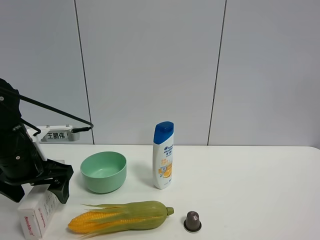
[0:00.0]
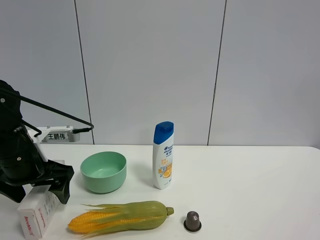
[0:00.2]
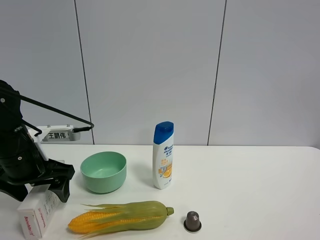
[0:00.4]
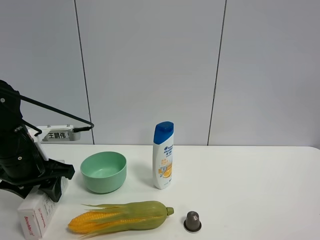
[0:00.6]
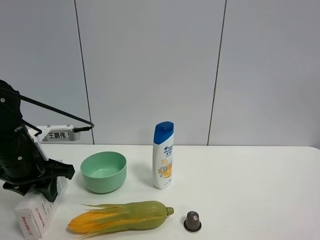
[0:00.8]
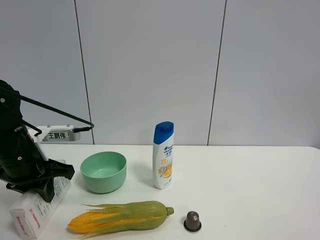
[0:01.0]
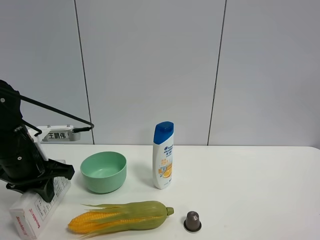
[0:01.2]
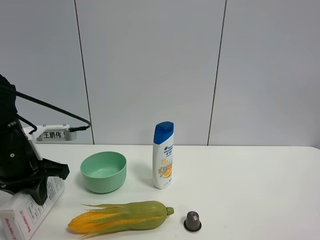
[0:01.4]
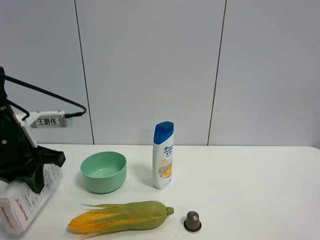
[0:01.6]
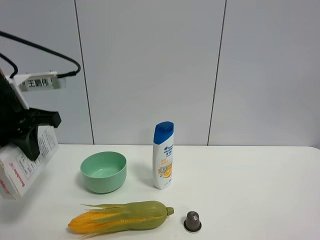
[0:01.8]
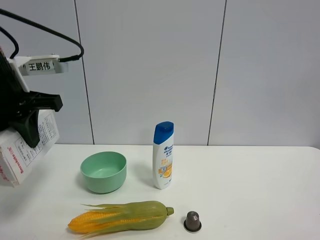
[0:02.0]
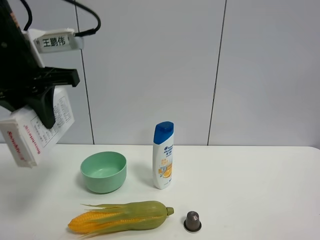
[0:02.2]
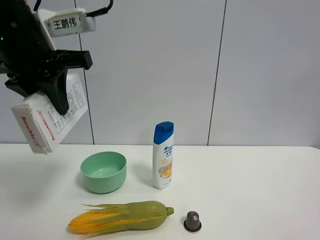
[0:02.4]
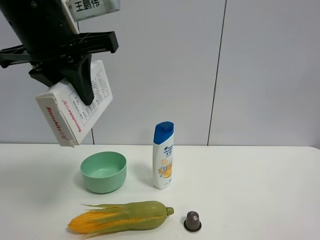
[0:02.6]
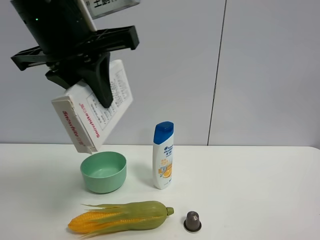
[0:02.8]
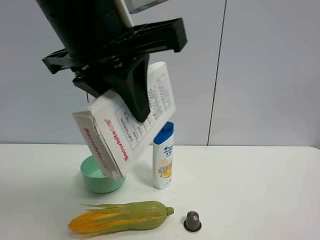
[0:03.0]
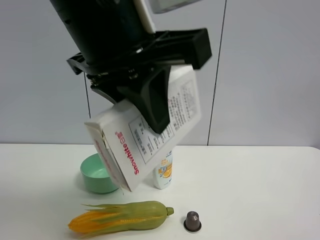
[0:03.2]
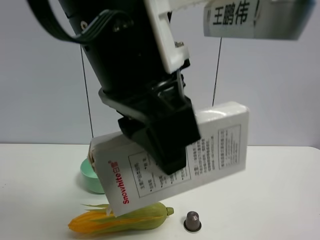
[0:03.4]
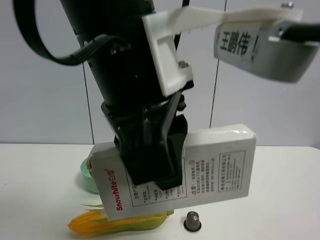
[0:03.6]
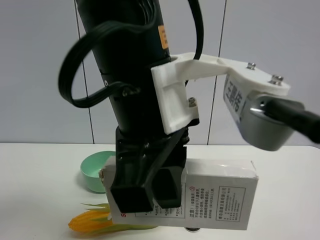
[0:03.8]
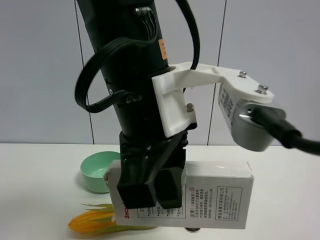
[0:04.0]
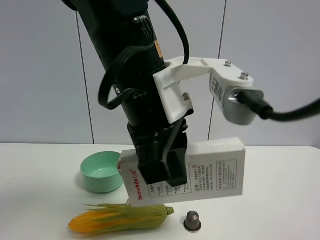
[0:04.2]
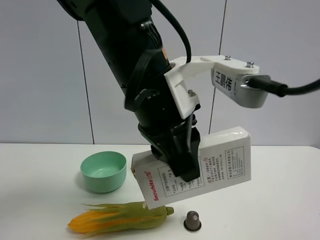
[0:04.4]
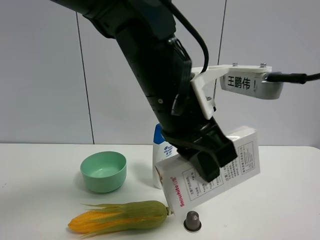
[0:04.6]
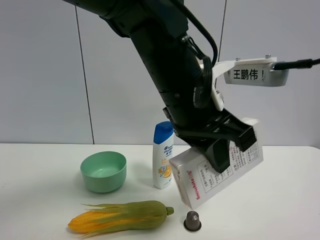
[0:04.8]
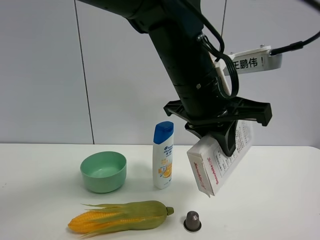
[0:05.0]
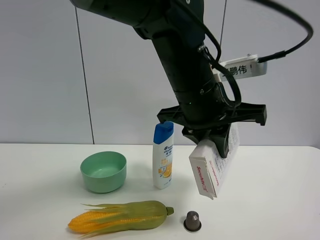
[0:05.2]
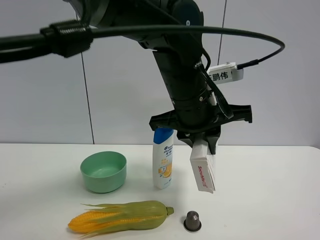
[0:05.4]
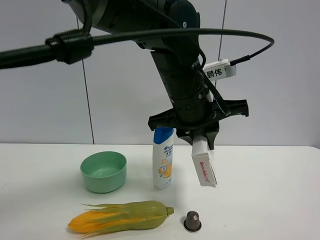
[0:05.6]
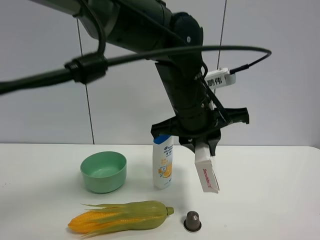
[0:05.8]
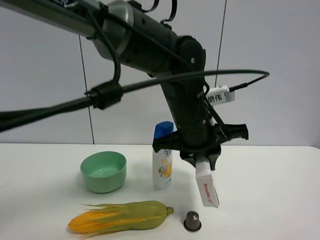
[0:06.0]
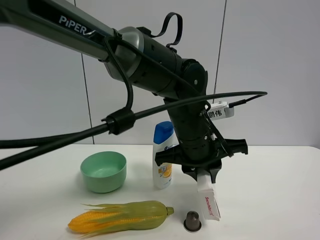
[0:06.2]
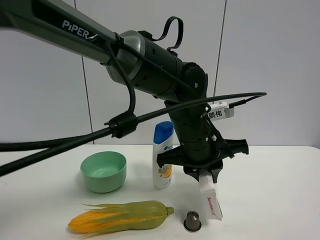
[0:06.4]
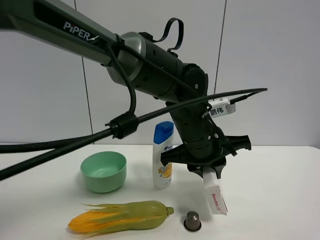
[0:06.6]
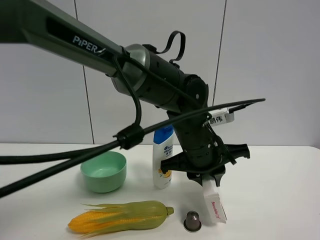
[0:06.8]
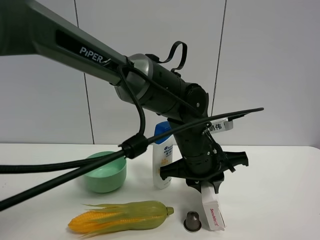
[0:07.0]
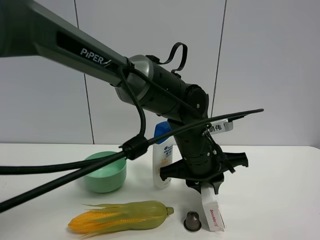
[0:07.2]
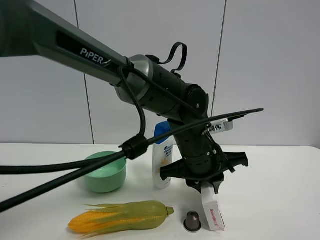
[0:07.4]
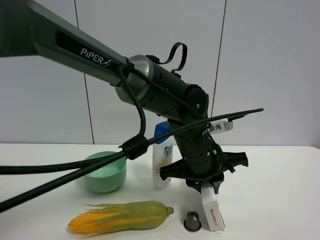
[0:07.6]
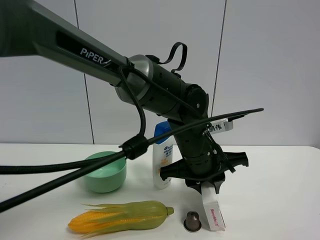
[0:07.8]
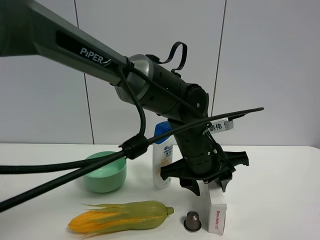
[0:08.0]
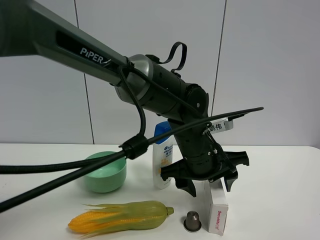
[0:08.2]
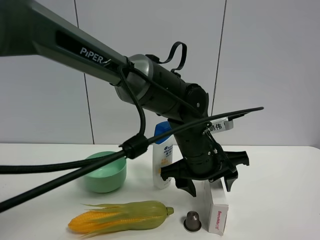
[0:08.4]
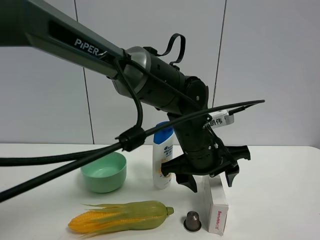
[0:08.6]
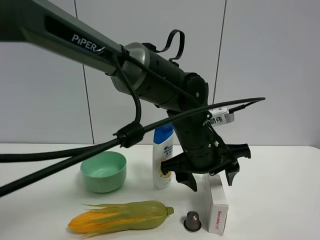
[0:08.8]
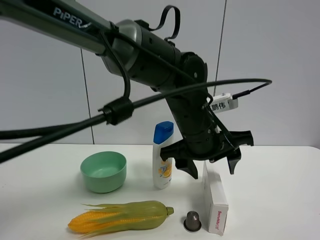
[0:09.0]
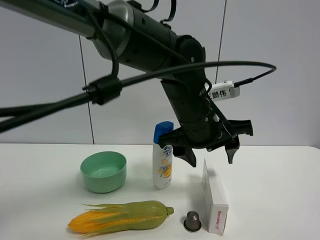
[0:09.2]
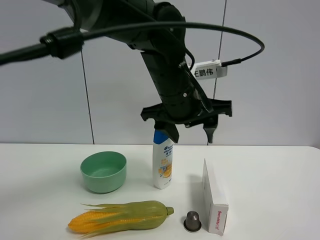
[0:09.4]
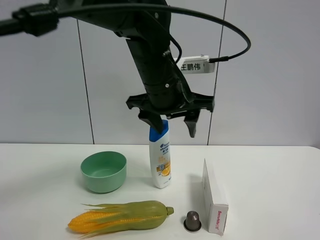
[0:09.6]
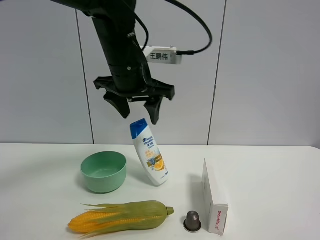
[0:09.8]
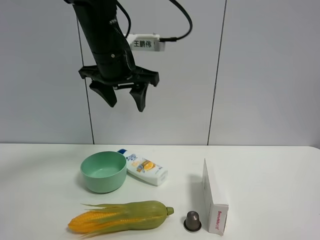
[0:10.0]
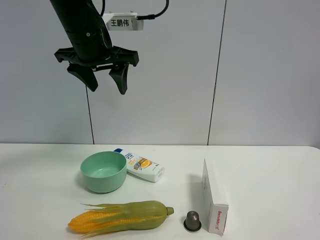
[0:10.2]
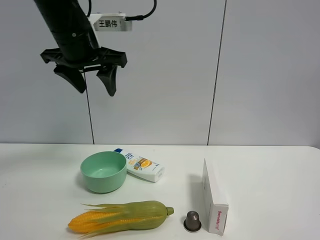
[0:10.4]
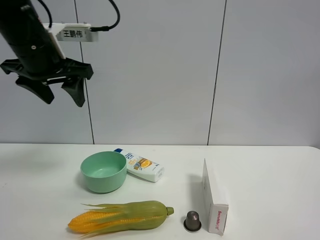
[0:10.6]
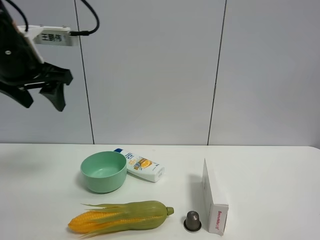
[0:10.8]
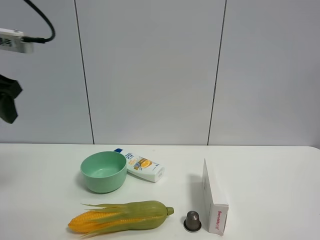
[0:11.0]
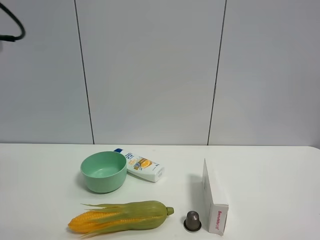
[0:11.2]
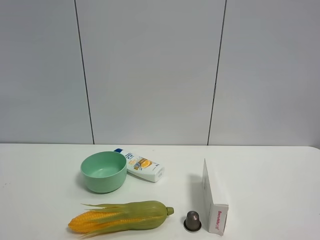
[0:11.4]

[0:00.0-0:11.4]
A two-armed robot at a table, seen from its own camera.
Task of the whole recording: the gripper move the object.
Step, 0:01.0 to 0:08.0: Place the USB box on the table with the left gripper.
0:00.0 to 0:01.4: The left gripper closes up.
0:01.4 to 0:02.8: The left gripper travels upward and to the right by approximately 25 cm.
0:02.8 to 0:04.2: The left gripper is displaced to the right and downward by about 10 cm.
0:04.2 to 0:05.6: The left gripper shifts approximately 10 cm forward and to the right.
0:05.6 to 0:07.2: The left gripper heads downward, covering approximately 10 cm.
0:07.2 to 0:08.6: The left gripper opens.
0:08.6 to 0:10.0: The left gripper moves to the left and upward, some 20 cm.
0:10.0 to 0:11.4: The left gripper is displaced to the left and backward by roughly 35 cm.

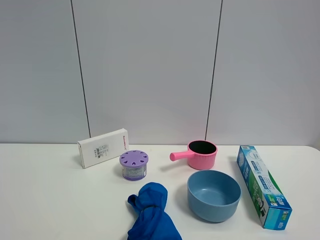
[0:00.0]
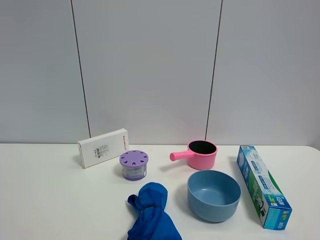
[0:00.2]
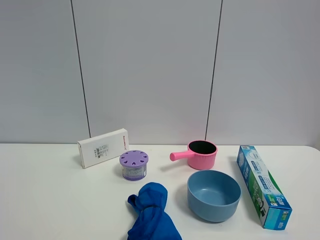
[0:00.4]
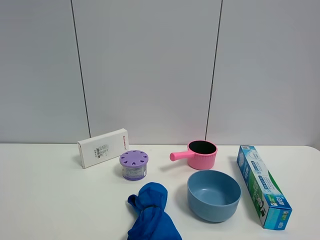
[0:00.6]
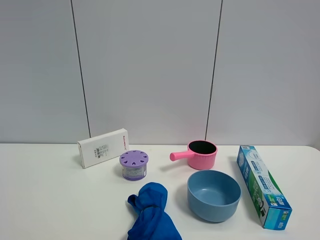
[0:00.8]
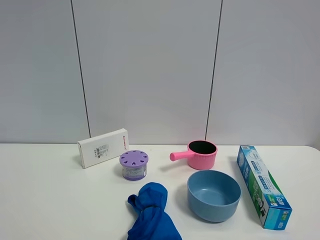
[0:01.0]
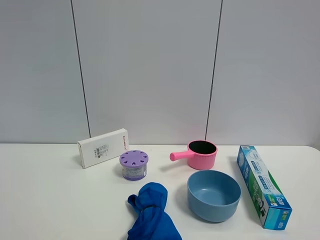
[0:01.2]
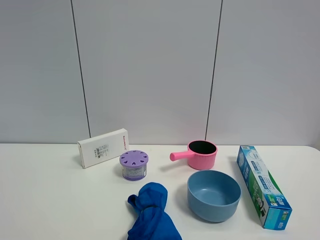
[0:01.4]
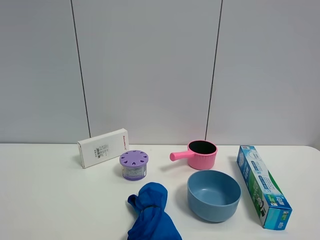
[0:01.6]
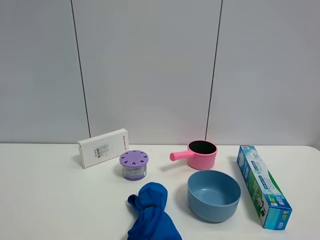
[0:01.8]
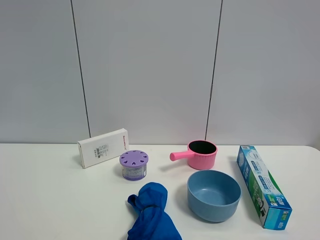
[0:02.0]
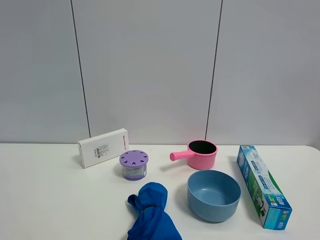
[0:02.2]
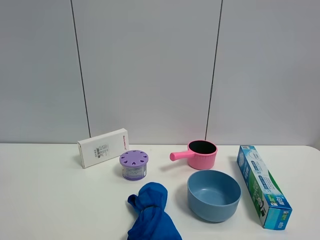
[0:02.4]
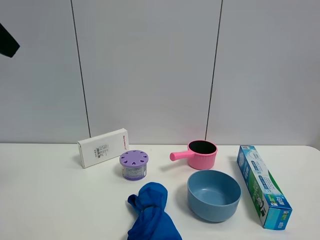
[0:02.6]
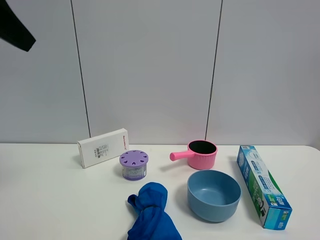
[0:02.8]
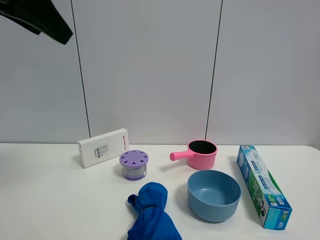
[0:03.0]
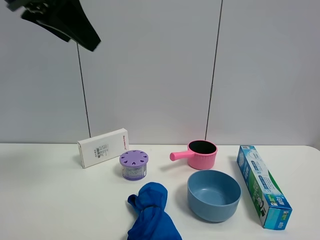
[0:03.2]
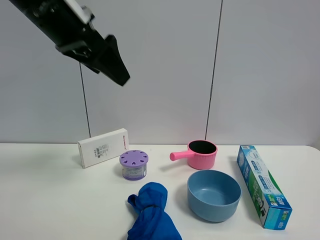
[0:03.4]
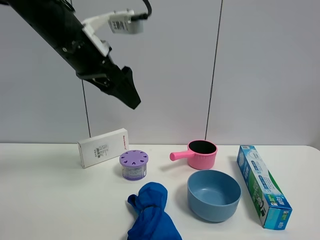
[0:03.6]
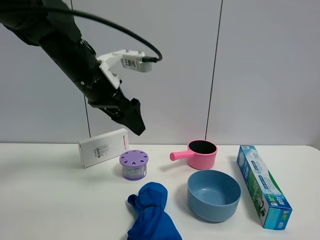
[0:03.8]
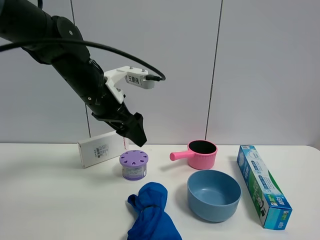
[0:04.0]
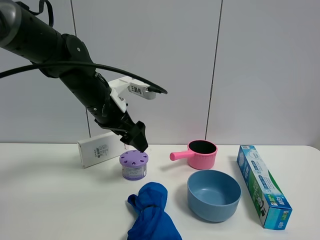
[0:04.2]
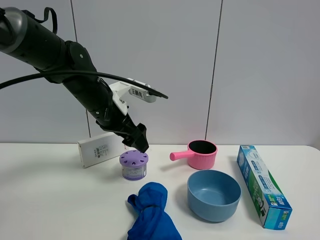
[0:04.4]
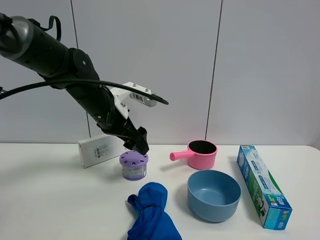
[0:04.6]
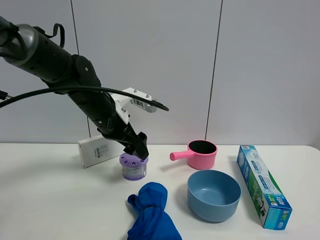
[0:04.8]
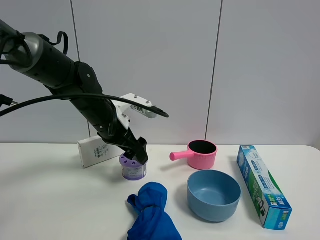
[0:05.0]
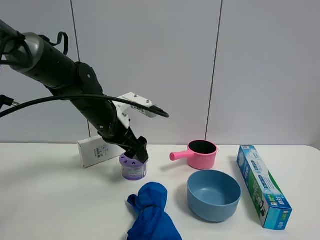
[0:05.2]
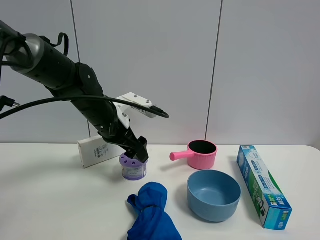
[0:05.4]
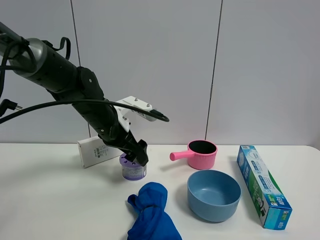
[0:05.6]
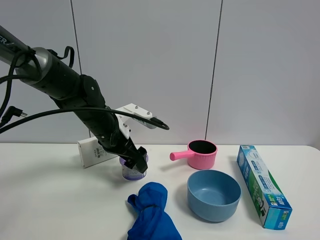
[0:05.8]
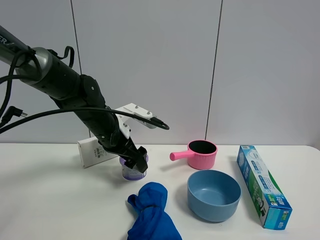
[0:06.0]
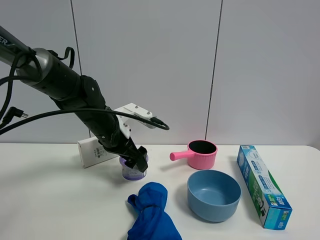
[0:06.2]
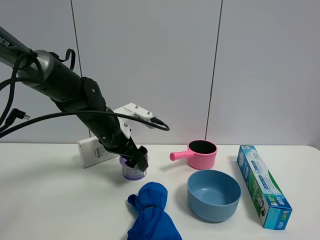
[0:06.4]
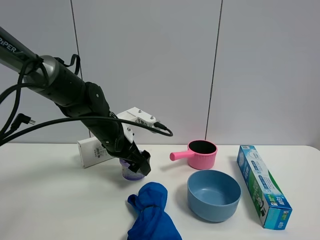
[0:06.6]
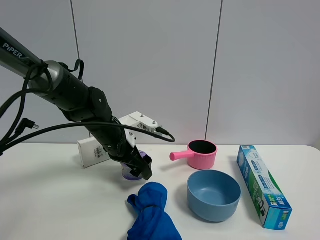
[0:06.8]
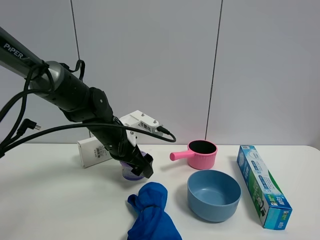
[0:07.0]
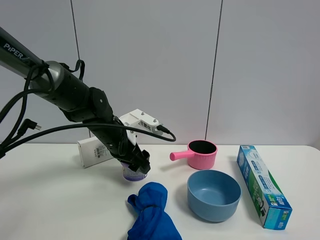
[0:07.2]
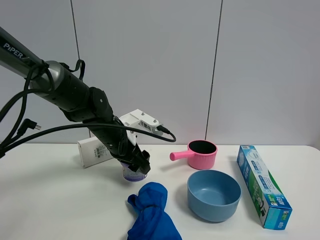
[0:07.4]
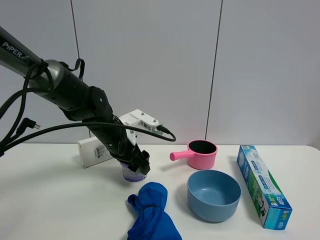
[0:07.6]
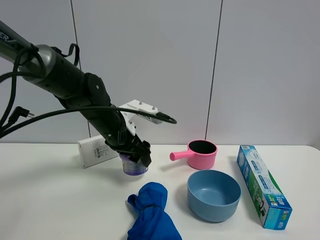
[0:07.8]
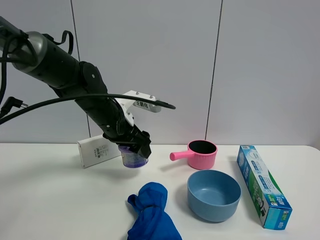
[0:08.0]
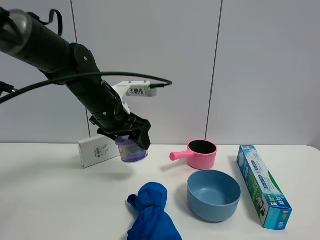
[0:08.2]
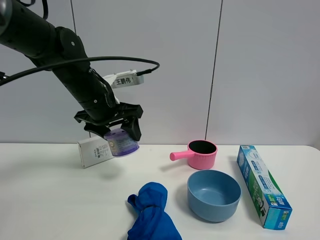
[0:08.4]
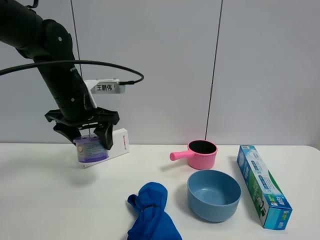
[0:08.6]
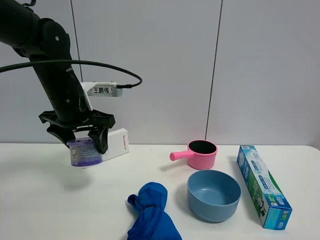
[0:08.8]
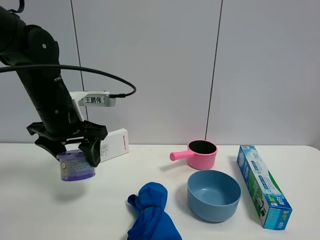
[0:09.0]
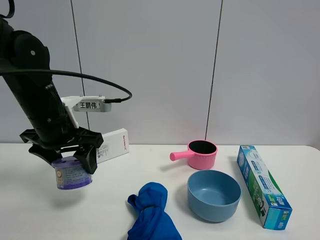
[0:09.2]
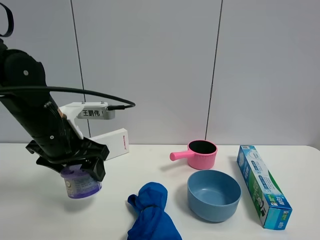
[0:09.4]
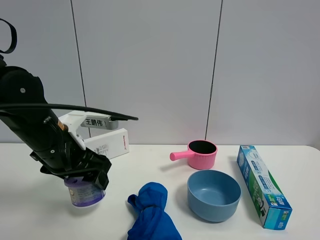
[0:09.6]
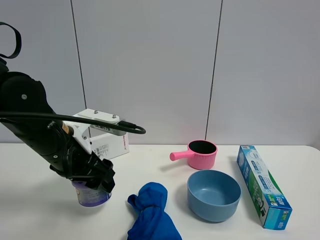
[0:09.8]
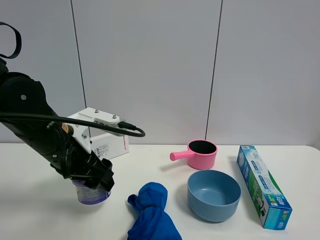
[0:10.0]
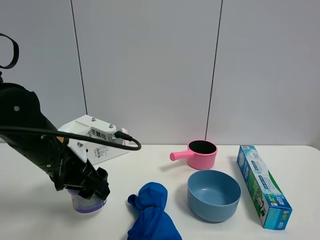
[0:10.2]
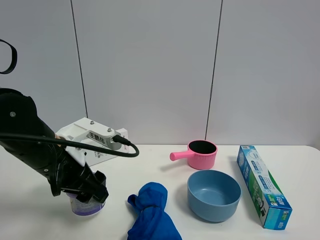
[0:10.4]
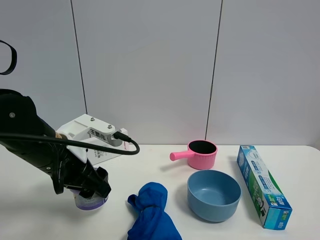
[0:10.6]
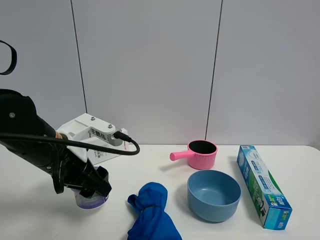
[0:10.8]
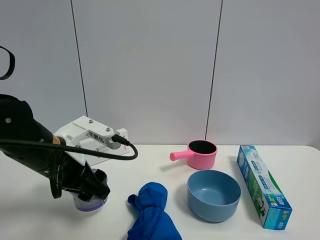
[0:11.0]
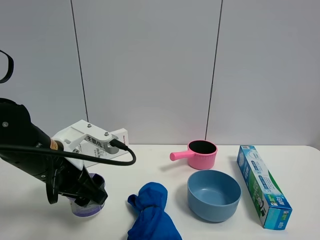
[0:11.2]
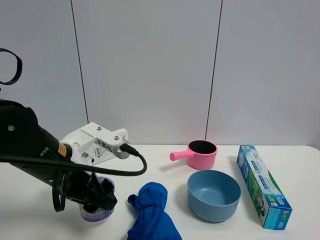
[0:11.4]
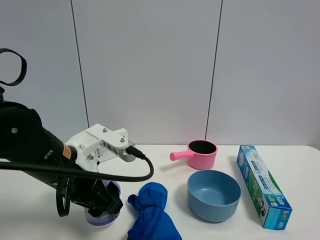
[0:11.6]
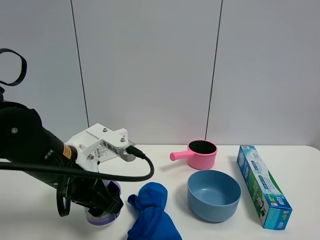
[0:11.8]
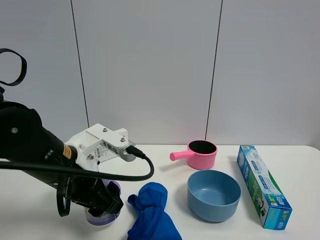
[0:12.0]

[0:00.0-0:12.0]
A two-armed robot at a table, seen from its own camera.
Task of the whole recording: the gripper move the object.
Step, 0:00.0 to 0:07.2: Grasp the Incense box with the left gripper.
0:01.6 to 0:03.0: The left gripper moves forward, roughly 25 cm.
0:03.0 to 0:04.4: The left gripper moves downward, forward and to the right, some 25 cm.
0:04.4 to 0:06.0: The left gripper heads downward, covering approximately 5 cm.
0:06.0 to 0:07.6: The left gripper closes up.
0:07.6 to 0:09.0: The left gripper moves upward, to the left and backward, some 15 cm.
0:09.0 to 0:10.4: The left gripper shifts about 10 cm backward and downward.
0:10.4 to 0:12.0: The grippers stay close to where they were, moving slightly.
